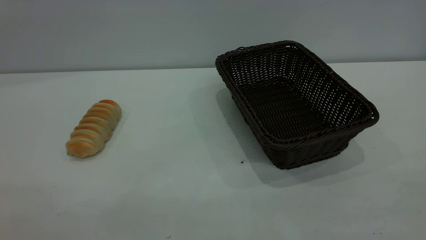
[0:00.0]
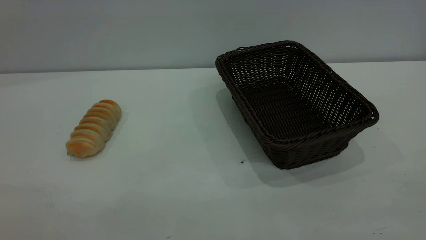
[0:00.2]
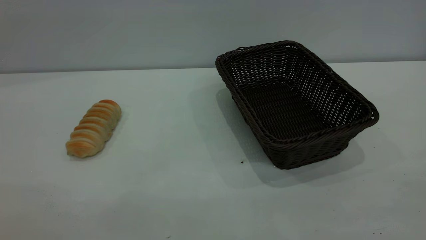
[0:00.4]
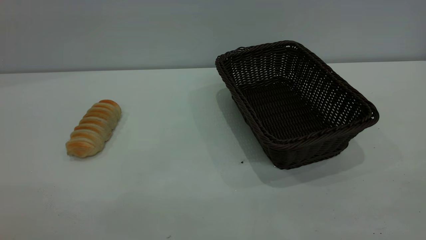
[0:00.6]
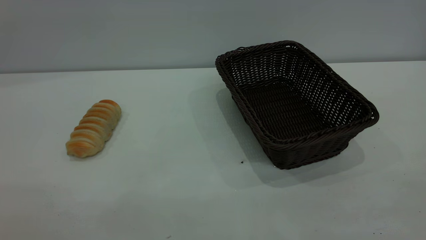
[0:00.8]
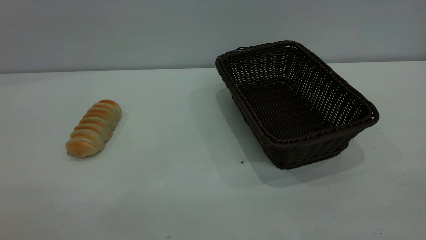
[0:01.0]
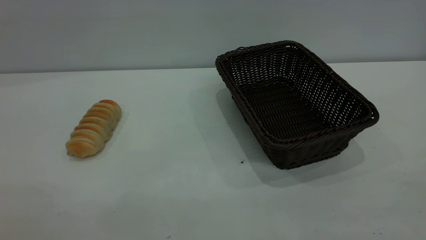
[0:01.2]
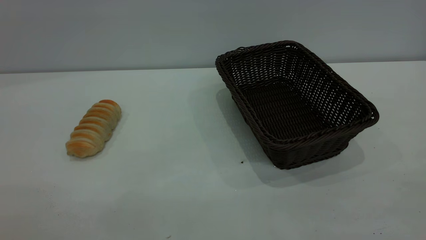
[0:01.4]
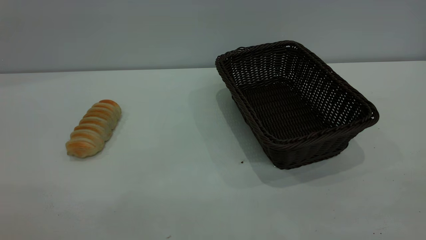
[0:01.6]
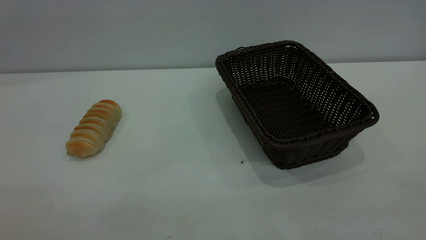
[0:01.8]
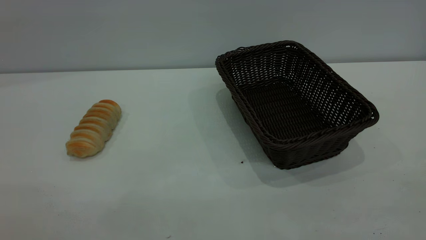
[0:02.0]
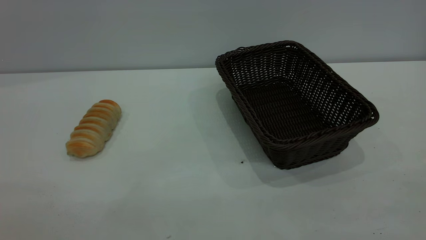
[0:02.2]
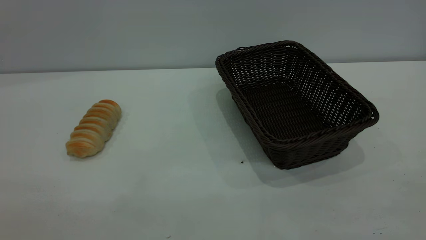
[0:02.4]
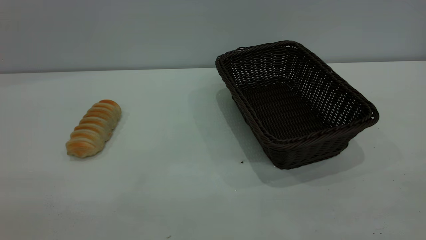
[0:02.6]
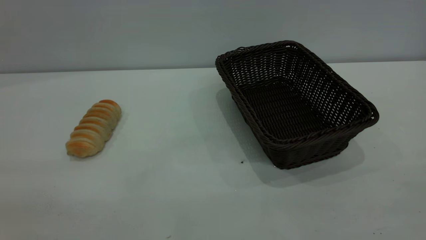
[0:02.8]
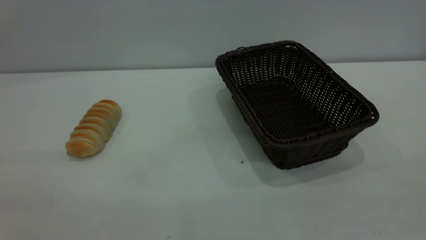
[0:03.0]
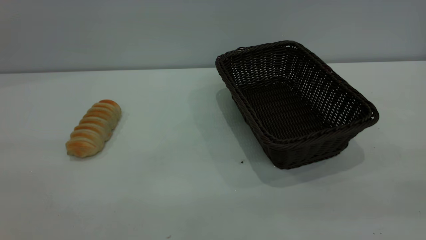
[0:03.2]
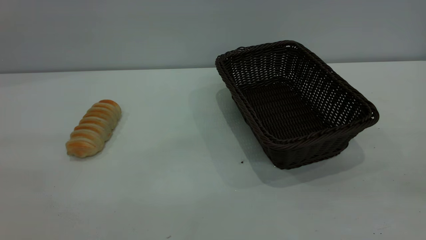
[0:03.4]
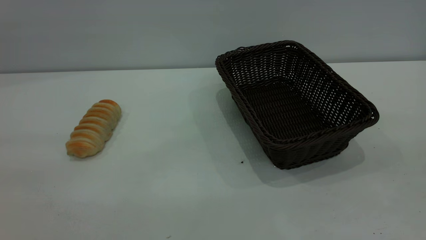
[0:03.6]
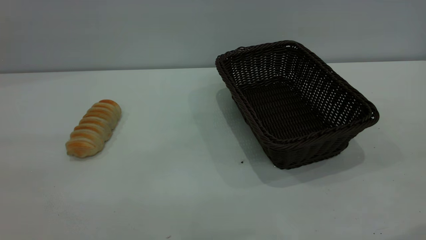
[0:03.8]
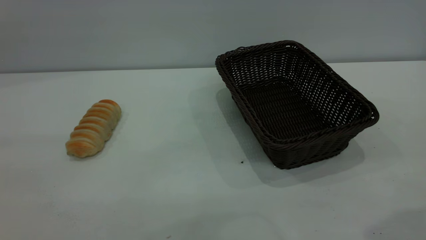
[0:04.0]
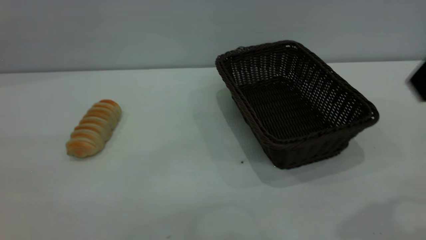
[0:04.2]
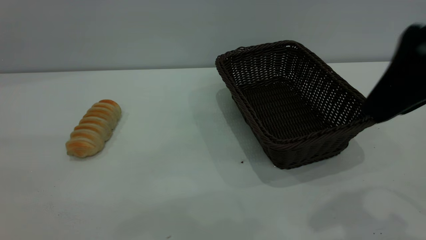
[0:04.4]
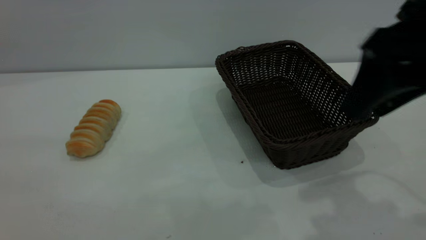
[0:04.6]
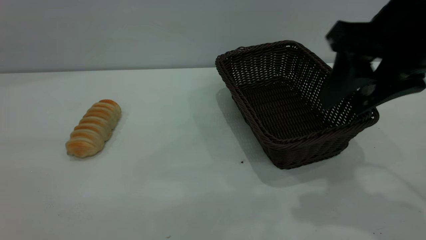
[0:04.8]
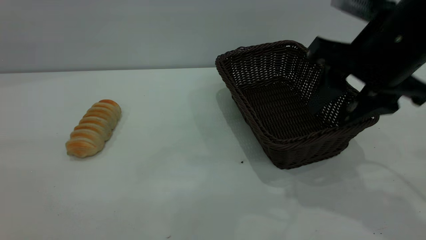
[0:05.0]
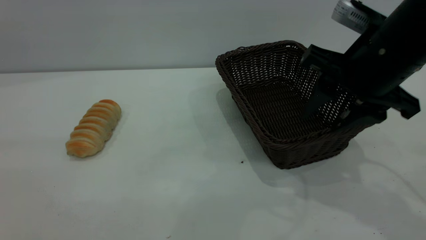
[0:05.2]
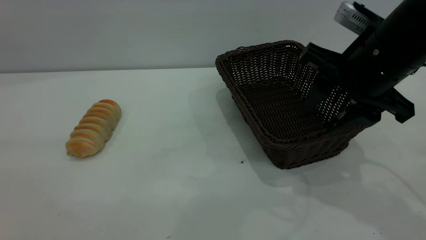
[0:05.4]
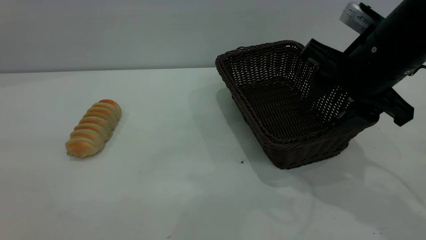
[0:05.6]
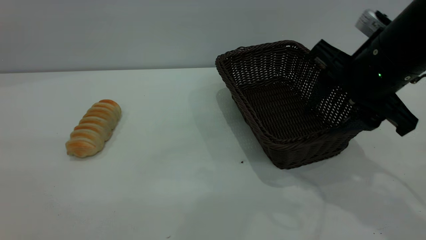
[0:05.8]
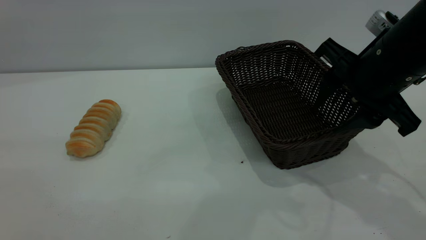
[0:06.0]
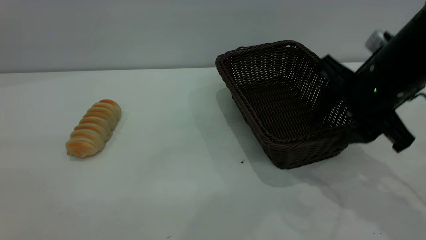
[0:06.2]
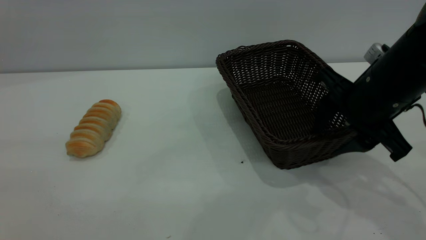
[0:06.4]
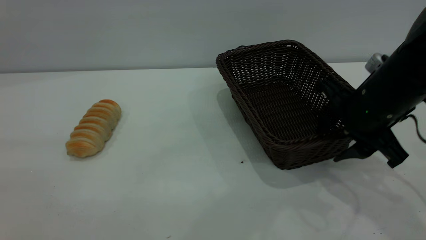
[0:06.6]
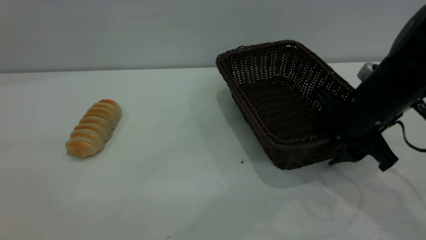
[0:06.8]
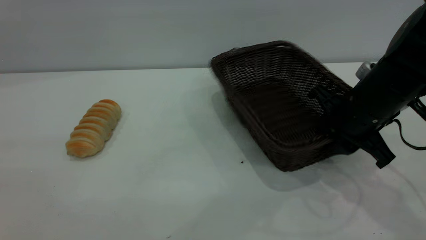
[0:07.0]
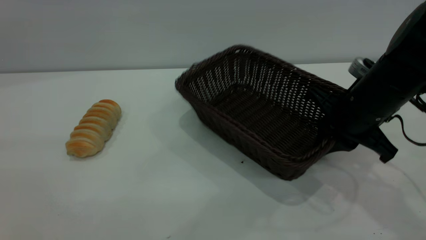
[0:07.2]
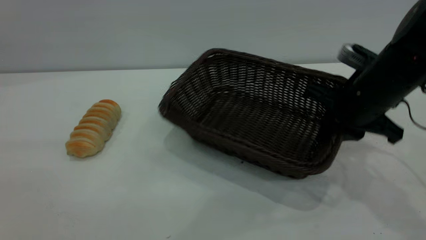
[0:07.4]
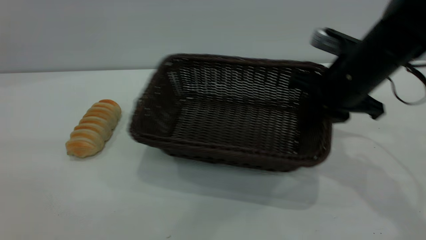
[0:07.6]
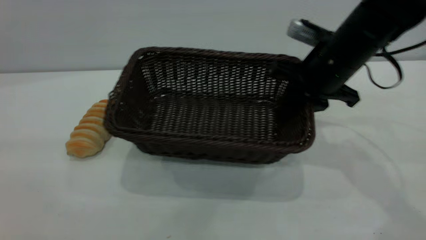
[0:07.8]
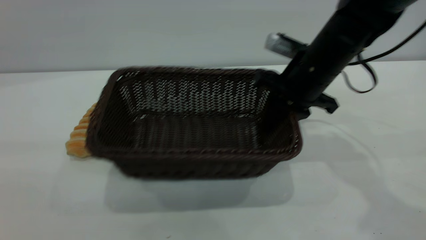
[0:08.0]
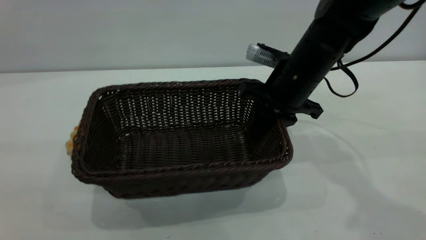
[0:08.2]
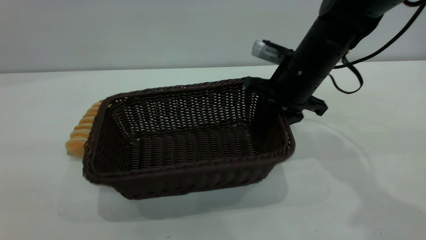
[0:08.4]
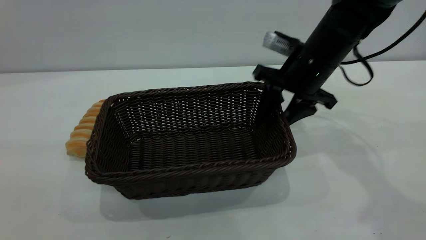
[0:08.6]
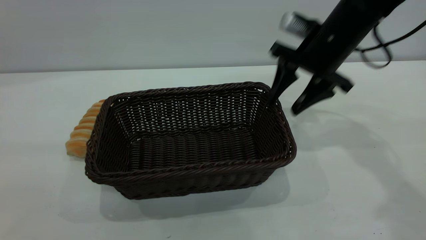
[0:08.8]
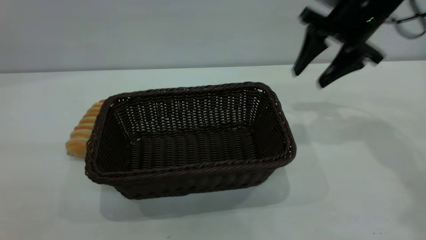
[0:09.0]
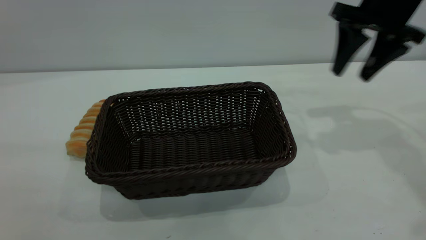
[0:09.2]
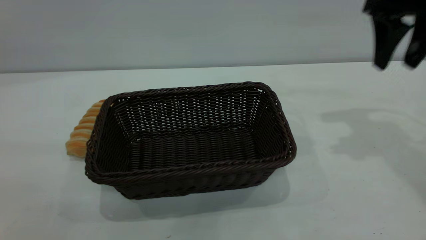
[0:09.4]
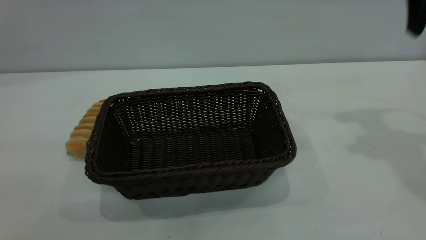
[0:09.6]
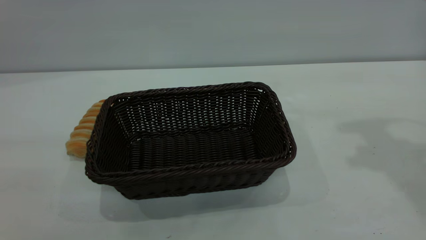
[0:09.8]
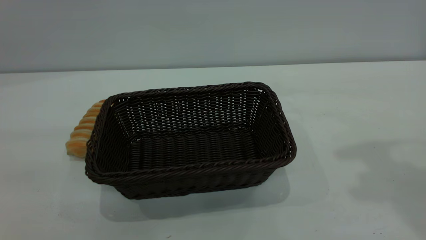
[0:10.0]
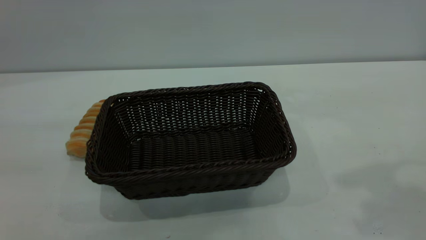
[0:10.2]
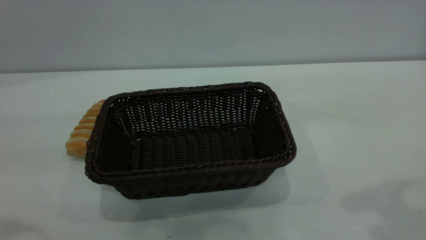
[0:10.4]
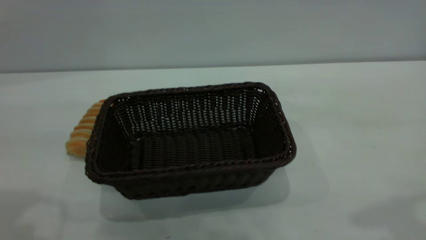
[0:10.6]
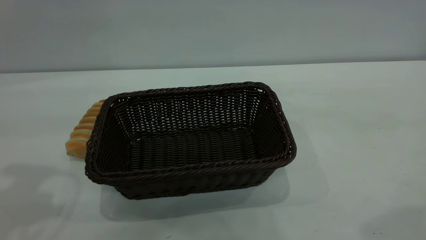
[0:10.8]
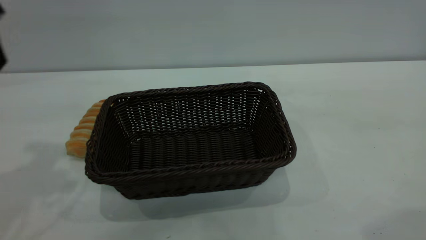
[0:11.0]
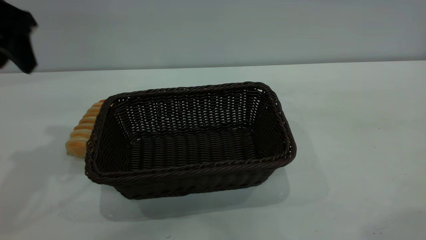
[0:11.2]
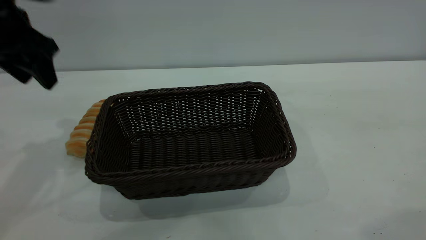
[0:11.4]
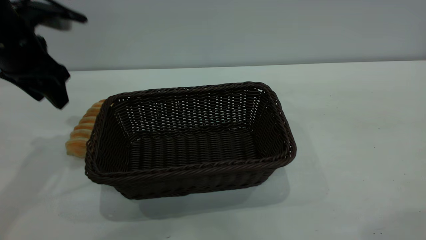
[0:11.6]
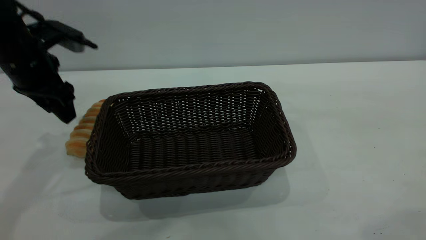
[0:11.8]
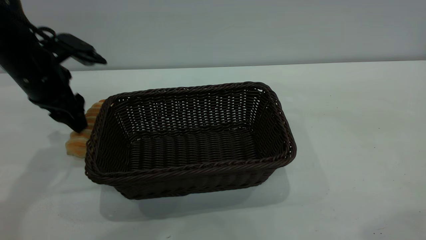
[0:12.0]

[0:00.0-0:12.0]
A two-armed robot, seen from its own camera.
Task of the whole recording: One hand grasps the black basket and places it in the middle of the table, while the other hand picks up the long bread and puts it into the black basket.
Step, 0:00.0 to 0:08.8: Move the basket to the center of view.
0:00.0 to 0:01.6: Both grippers stay about where they are.
0:03.0 to 0:04.4: The right gripper travels forward and to the left by about 25 cm.
0:04.4 to 0:06.0: The right gripper heads downward and forward, covering about 15 cm.
0:06.0 to 0:07.6: The right gripper heads forward, covering some 5 cm, and closes up.
0:07.6 to 0:09.0: The right gripper shifts about 10 cm forward and upward, and opens.
0:09.0 to 0:10.4: The right gripper goes roughly 30 cm backward and upward. The left gripper goes some 15 cm forward and downward.
0:10.4 to 0:12.0: The left gripper travels forward and downward by roughly 30 cm.

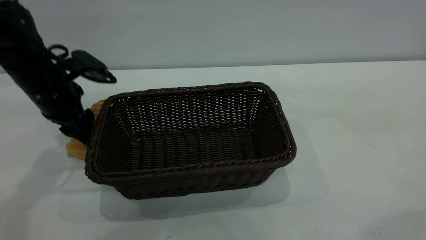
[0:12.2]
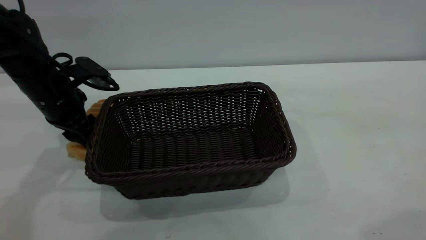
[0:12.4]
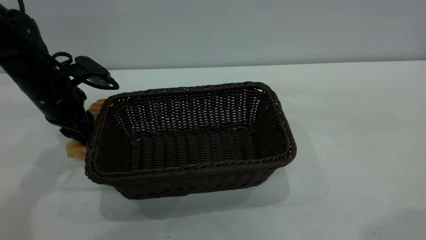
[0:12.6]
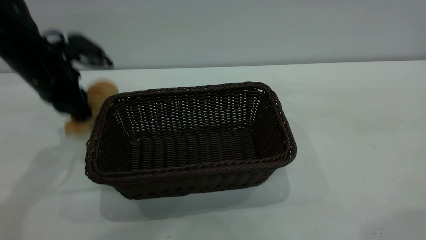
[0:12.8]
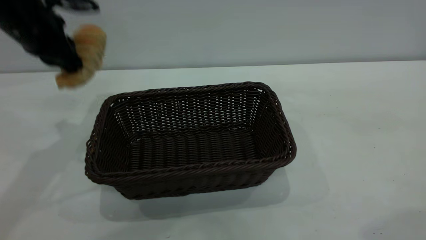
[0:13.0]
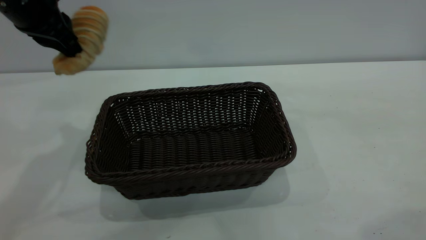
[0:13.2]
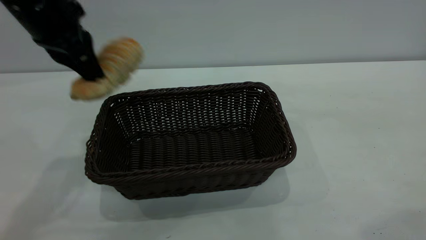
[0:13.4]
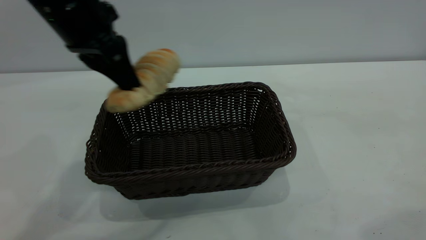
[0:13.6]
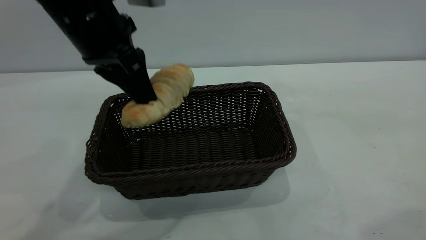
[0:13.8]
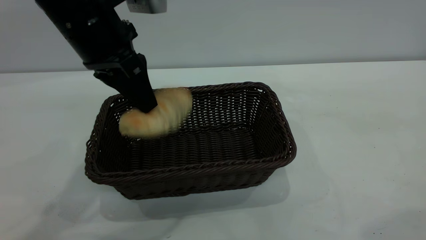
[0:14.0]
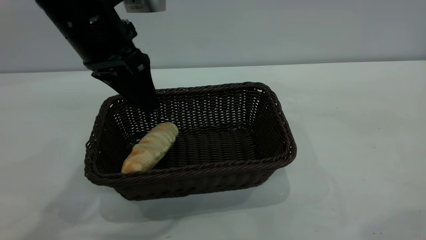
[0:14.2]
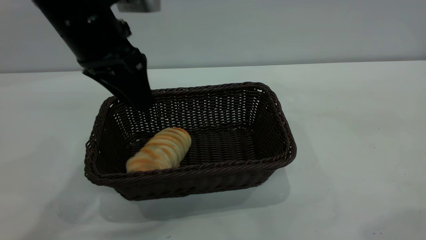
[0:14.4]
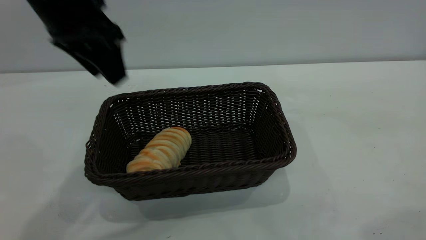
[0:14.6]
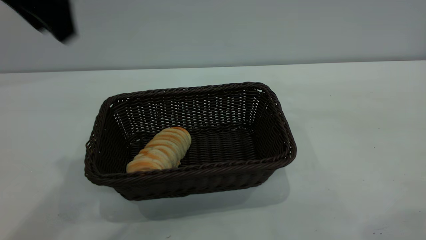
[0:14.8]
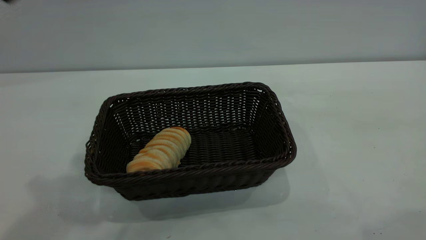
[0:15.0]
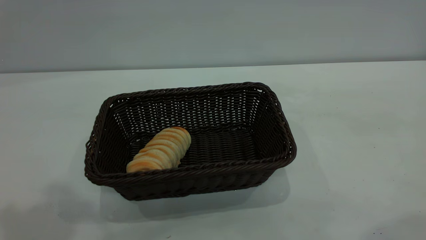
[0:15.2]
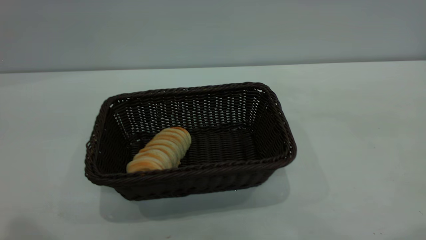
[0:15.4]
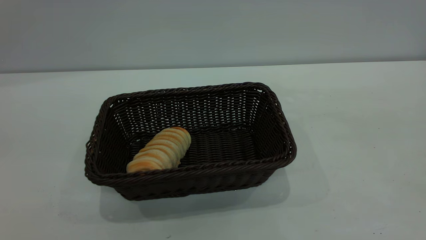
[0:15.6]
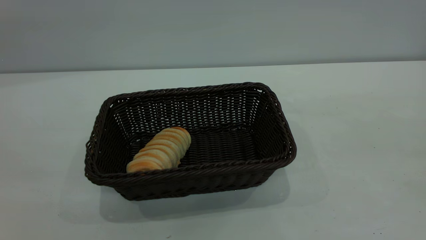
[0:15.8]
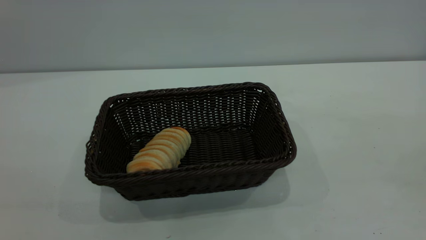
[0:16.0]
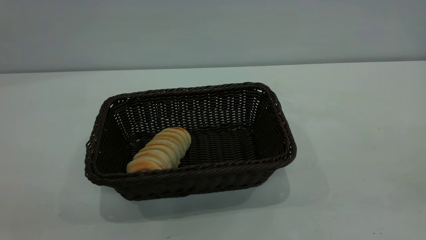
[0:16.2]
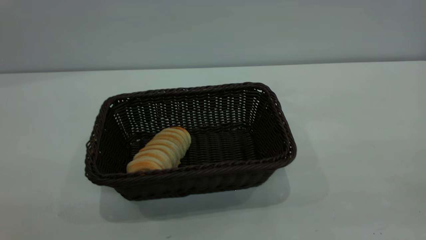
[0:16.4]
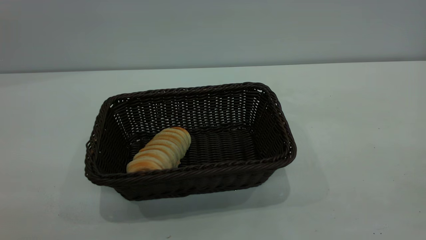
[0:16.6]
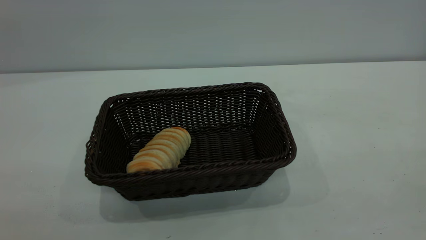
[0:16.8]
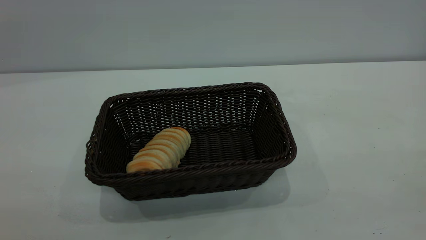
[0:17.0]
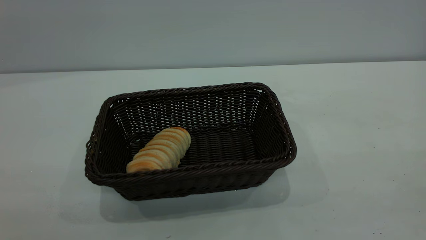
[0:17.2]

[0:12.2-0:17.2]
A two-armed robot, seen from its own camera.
Task of the whole recording: One hand grasps the black basket and places it in the middle of the table, while the other hand picks up the long bread and puts it into the black basket.
Step, 0:13.2 to 0:14.6: place the bread into the basket.
0:12.2 to 0:13.8: The left gripper is displaced upward, to the right and backward by approximately 20 cm, and closes up.
0:13.8 to 0:15.6: The right gripper shifts roughly 5 cm backward, while the left gripper is displaced backward, upward and to the left by approximately 35 cm, and opens up.
